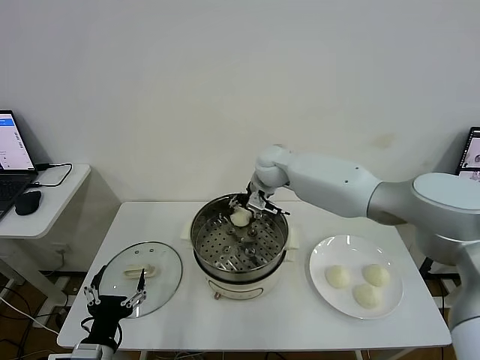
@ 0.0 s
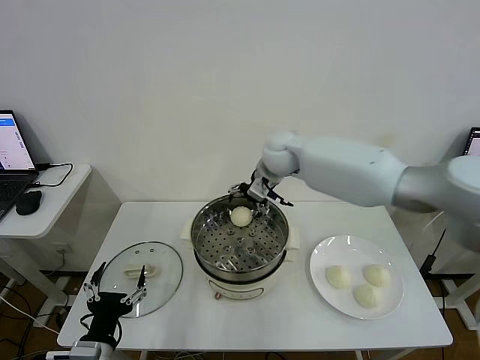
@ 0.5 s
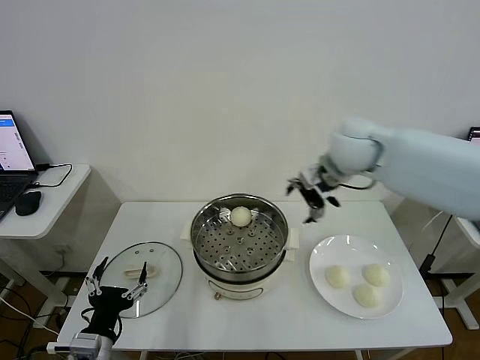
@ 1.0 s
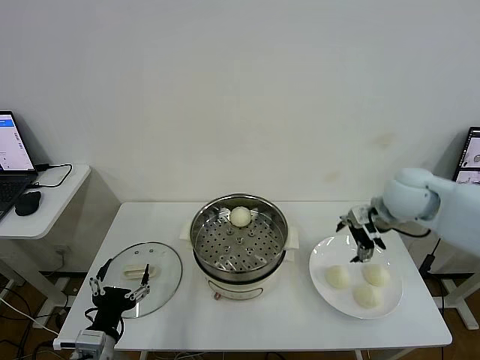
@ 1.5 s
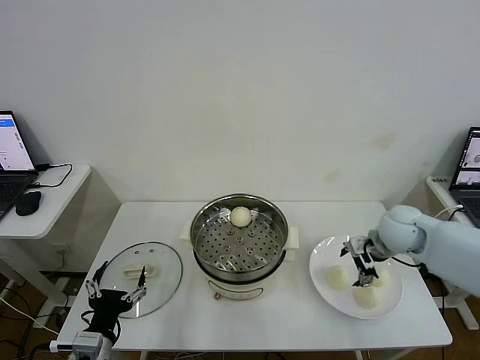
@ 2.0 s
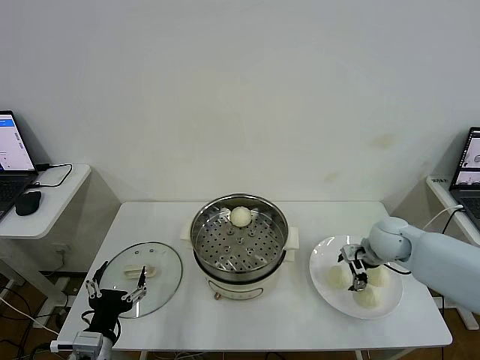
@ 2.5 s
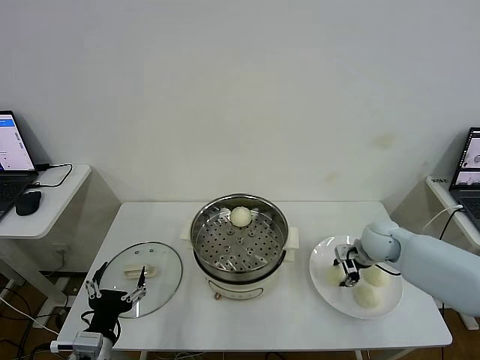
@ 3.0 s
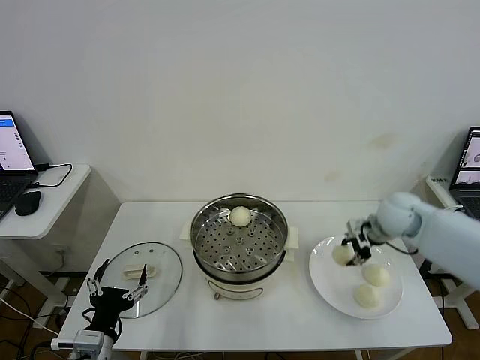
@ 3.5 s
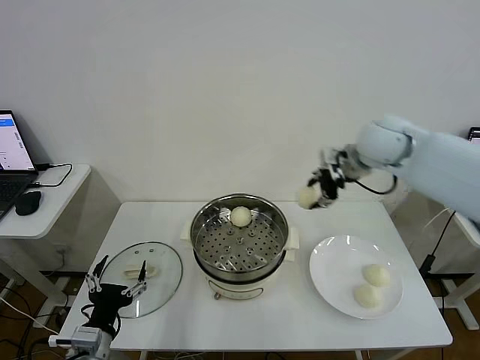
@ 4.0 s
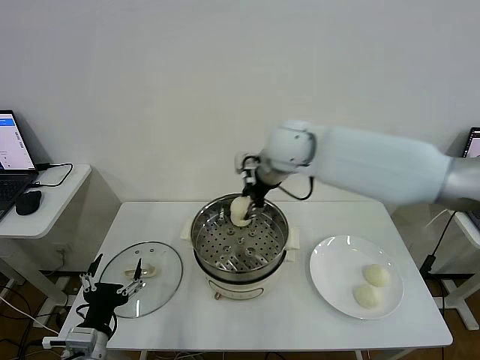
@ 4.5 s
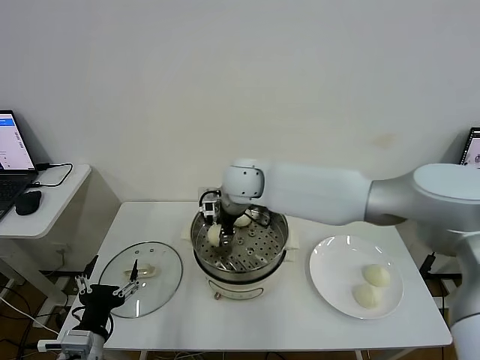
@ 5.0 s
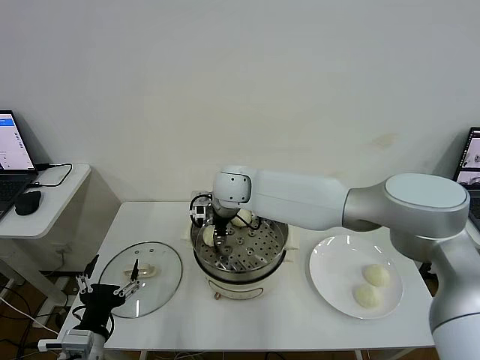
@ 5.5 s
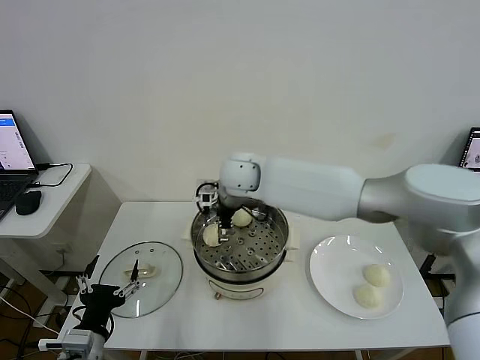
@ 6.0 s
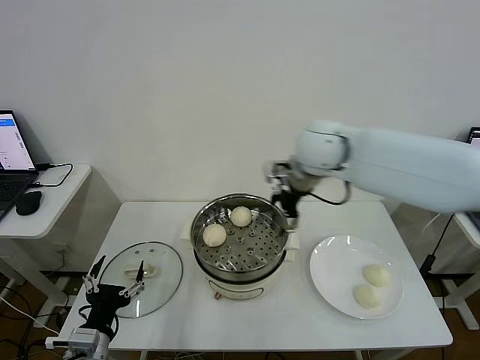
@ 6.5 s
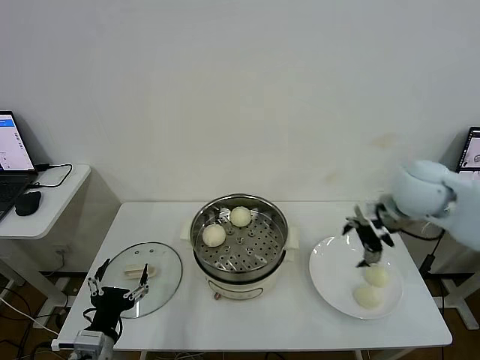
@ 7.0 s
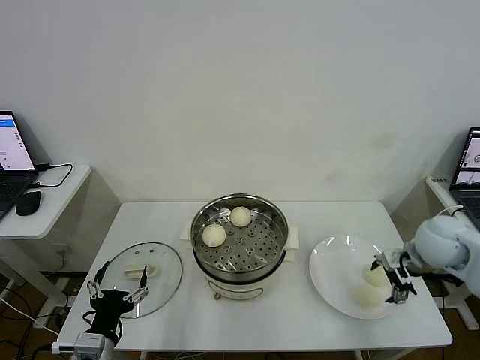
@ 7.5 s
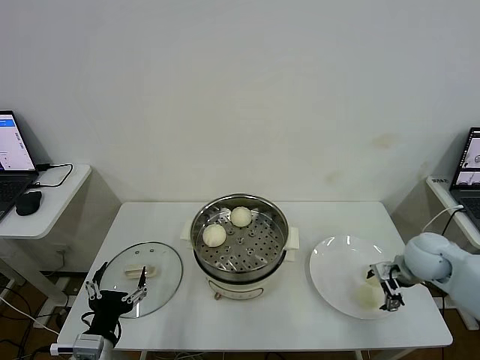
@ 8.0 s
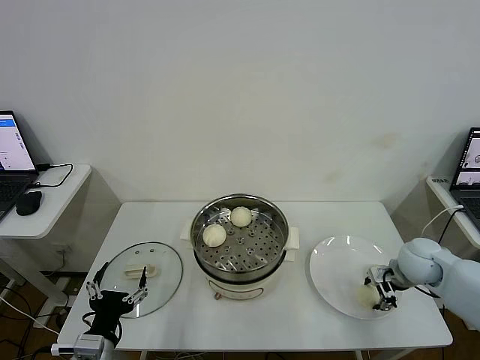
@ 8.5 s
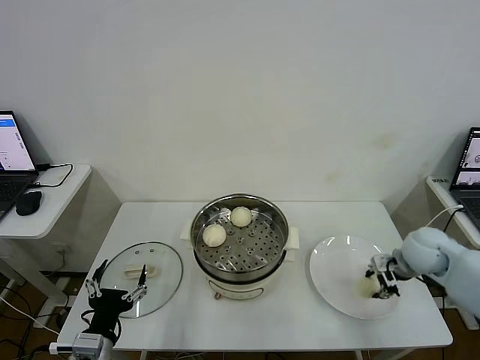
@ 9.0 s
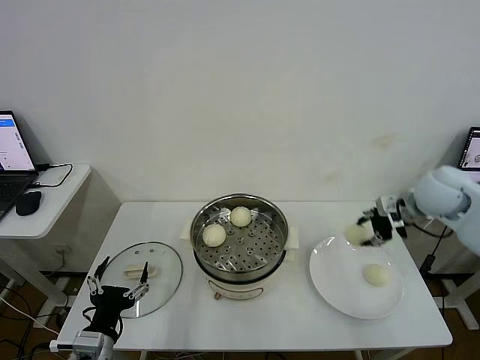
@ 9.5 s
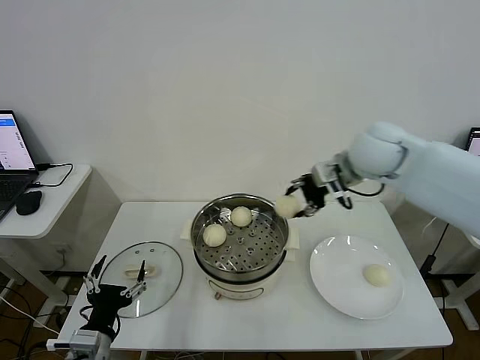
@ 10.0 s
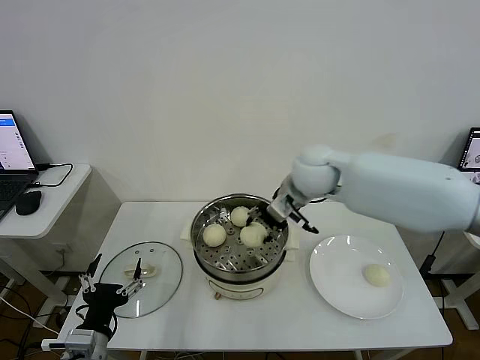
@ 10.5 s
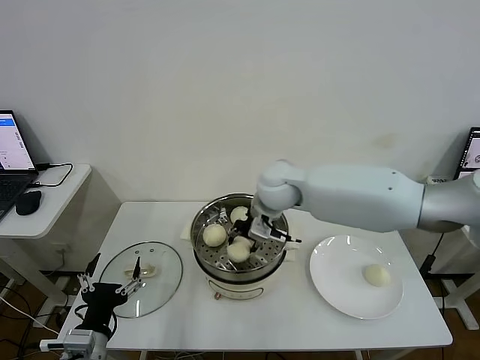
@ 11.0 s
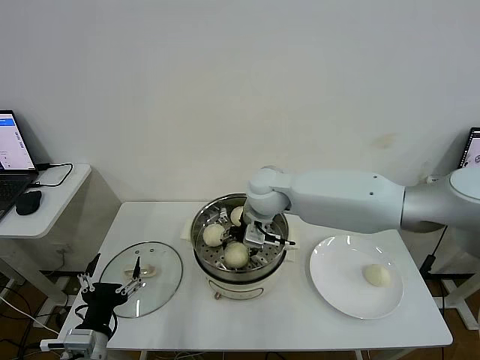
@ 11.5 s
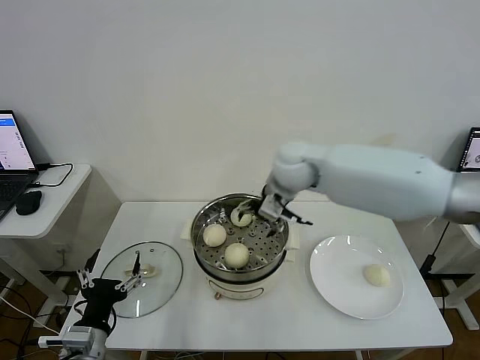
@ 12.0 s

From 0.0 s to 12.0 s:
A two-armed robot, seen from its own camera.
Task of the whole recording: take steamed baozi put them in steamer then cover it.
Step, from 0.5 s to 3.0 s: Grasp the baozi in the plate with right gripper.
Step, from 3.5 s to 6.0 s: Place the baozi on the steamer with right gripper.
Step, from 6.5 s to 8.5 s: Grasp the baozi in the plate with right gripper.
Step, from 9.0 s to 11.5 s: Place the baozi on the steamer with right gripper.
From 0.0 s to 2.0 s: The right gripper heads to the right and backward, covering about 30 cm, and opens up.
From 2.0 s to 4.0 s: The right gripper travels upward and to the left by some 25 cm, and closes up.
From 4.0 s to 6.0 s: The right gripper shifts some 20 cm to the left, and opens.
From 6.0 s to 8.0 s: The right gripper is displaced to the right by some 40 cm.
From 8.0 s to 10.0 s: The right gripper is displaced upward, to the left and forward by approximately 30 cm, and closes.
From 10.0 s to 12.0 s: The right gripper moves to the left, roughly 10 cm, and opens up.

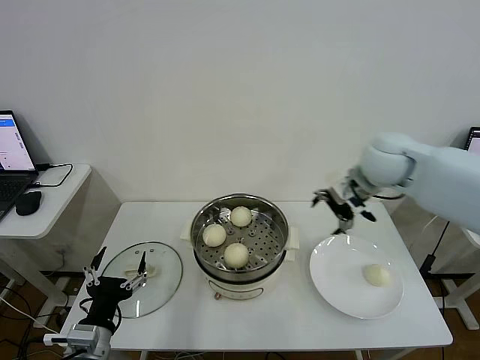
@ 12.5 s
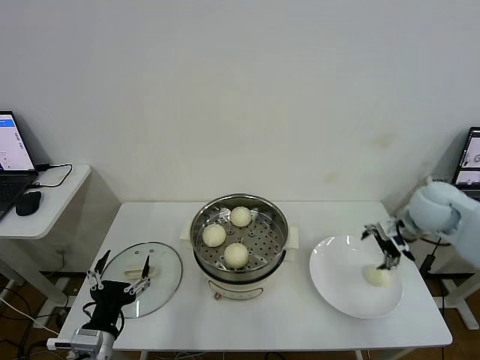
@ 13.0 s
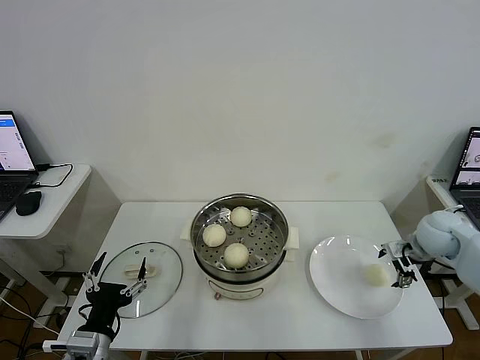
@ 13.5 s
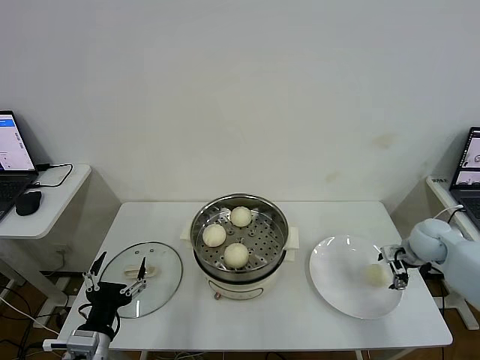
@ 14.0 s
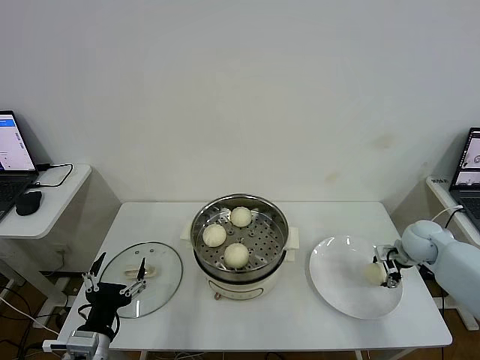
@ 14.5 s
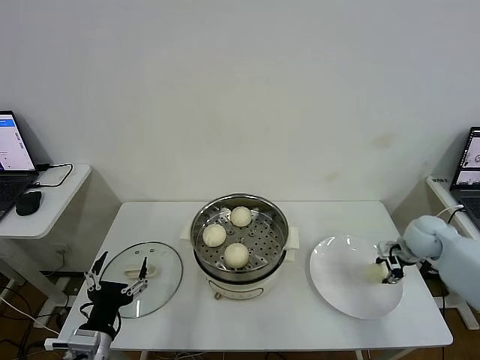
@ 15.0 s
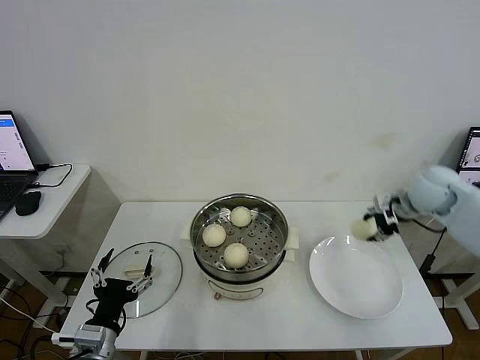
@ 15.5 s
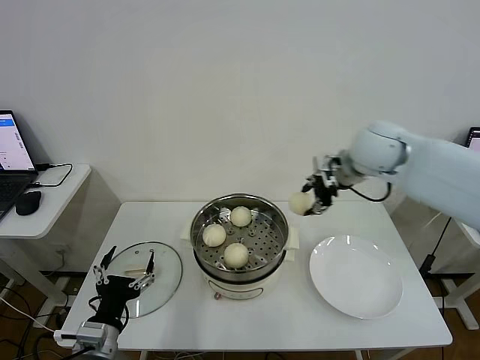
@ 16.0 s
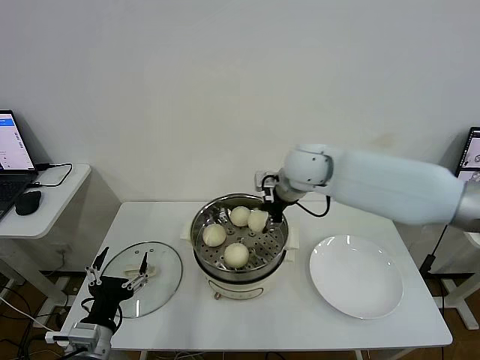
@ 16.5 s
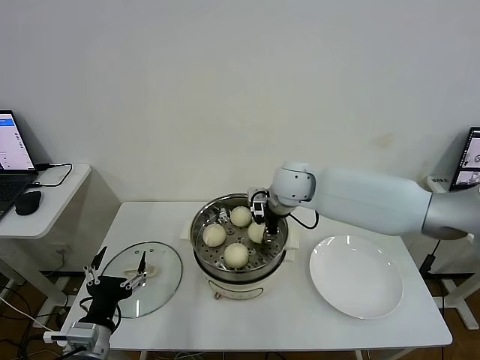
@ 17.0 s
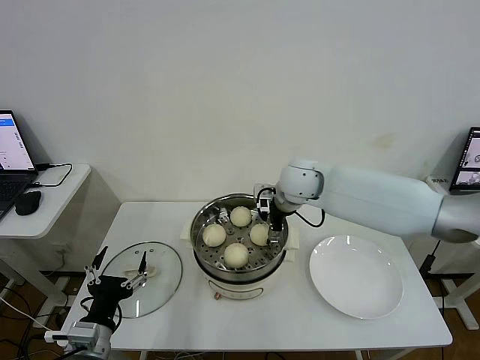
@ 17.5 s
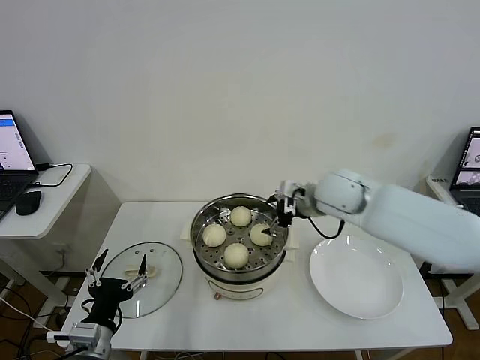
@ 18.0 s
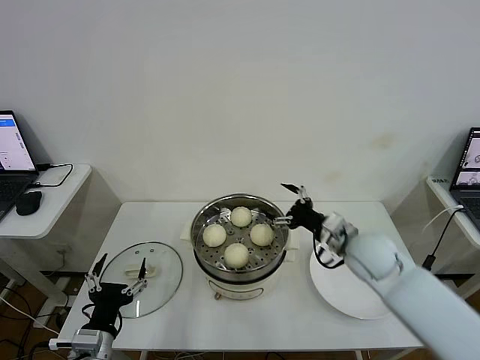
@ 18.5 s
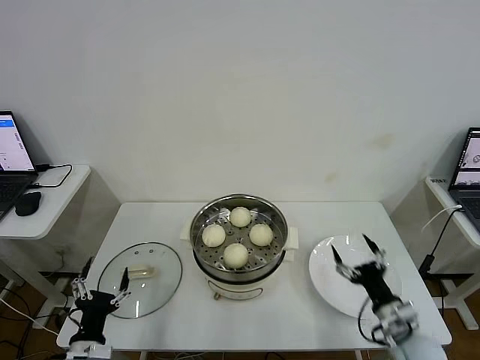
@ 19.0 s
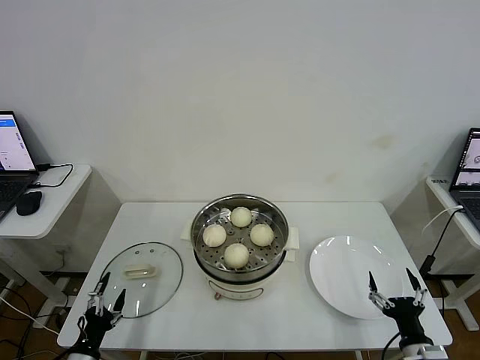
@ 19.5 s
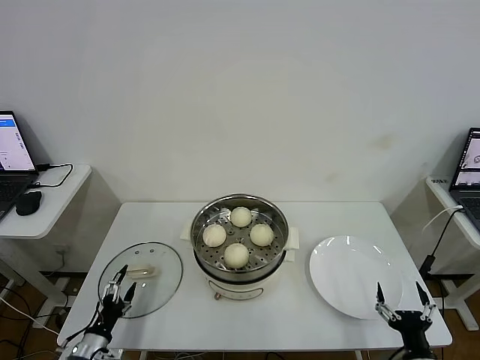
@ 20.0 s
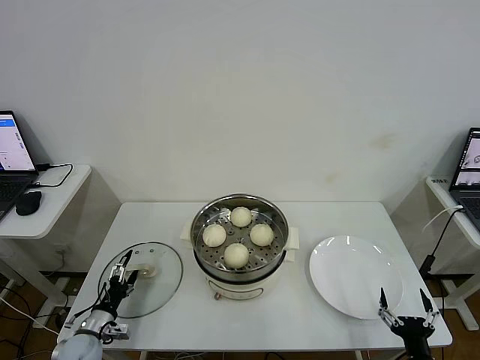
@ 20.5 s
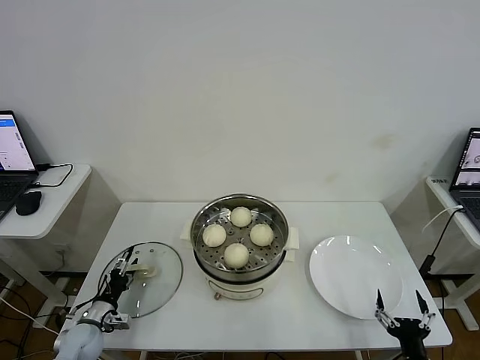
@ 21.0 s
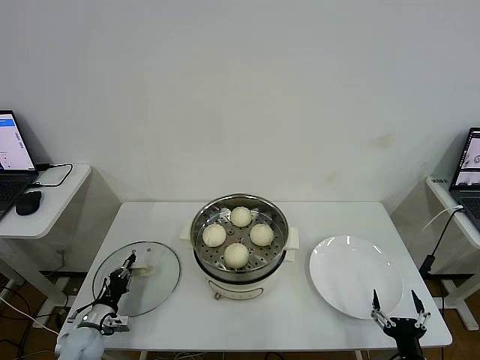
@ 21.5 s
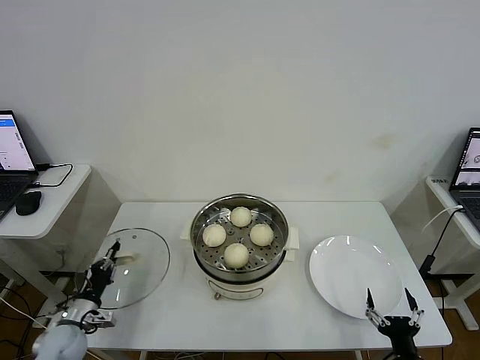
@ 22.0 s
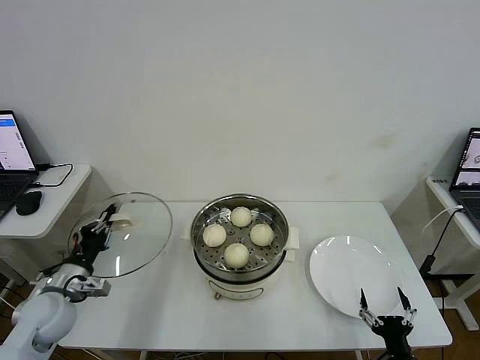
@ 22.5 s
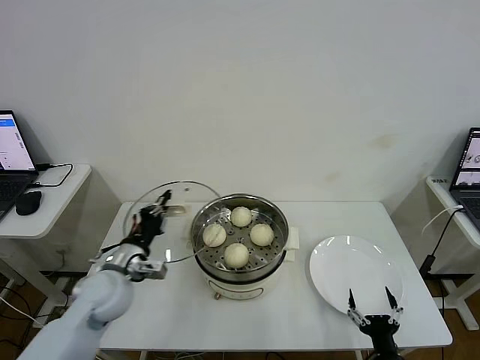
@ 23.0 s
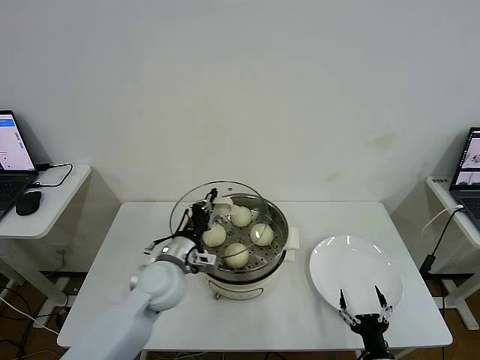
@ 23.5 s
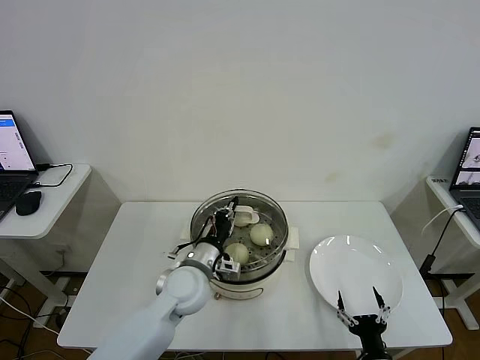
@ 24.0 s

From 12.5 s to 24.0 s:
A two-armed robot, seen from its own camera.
Task of the whole recording: take steamed baozi put them in steamer then cover it.
Step, from 12.5 s to 14.5 s: Grasp the baozi in the plate with right gripper.
Step, from 15.0 s to 17.5 s: Place the baozi on the steamer with right gripper.
Step, from 18.0 s to 21.5 s: Grasp the pot lid with left gripper.
From 12.5 s to 14.5 s: The right gripper heads downward and to the right, covering approximately 25 cm, and closes up.
From 14.5 s to 16.5 s: The right gripper shifts about 35 cm to the left and upward, and closes.
From 16.5 s to 18.5 s: The right gripper shifts roughly 20 cm downward, to the right and backward, and opens up.
From 18.5 s to 20.0 s: The right gripper moves backward and downward, about 30 cm; the left gripper shifts roughly 20 cm downward and to the left.
From 20.0 s to 22.0 s: The left gripper goes about 10 cm forward, and closes its fingers.
From 22.0 s to 24.0 s: The left gripper goes about 35 cm to the right and upward, while the right gripper shifts by approximately 5 cm.

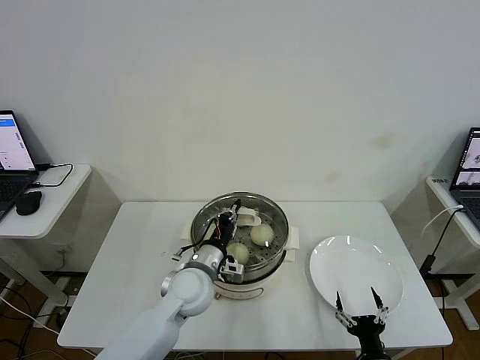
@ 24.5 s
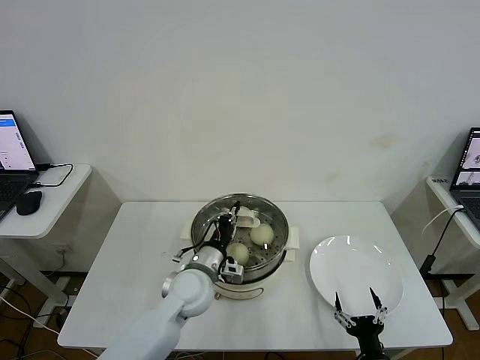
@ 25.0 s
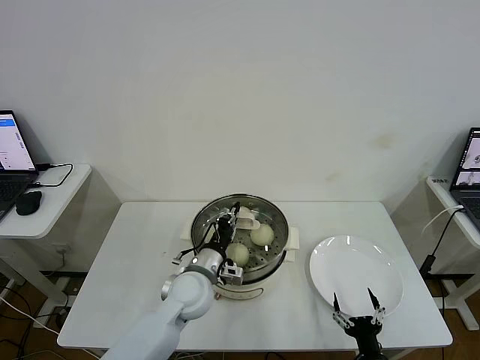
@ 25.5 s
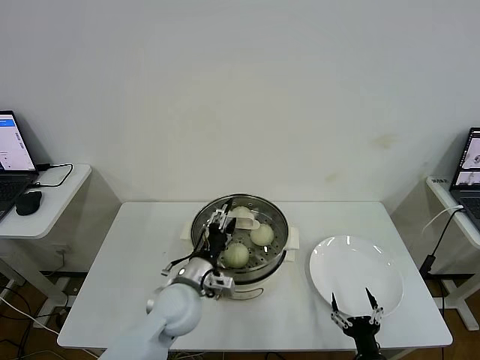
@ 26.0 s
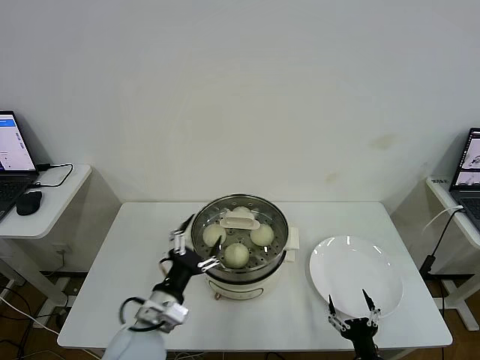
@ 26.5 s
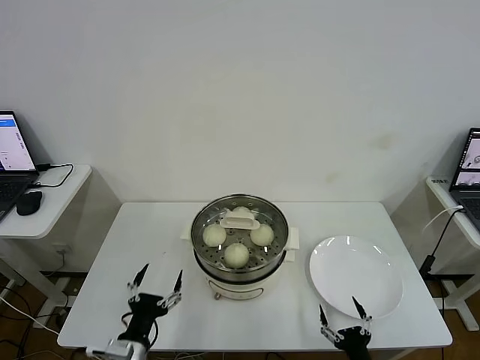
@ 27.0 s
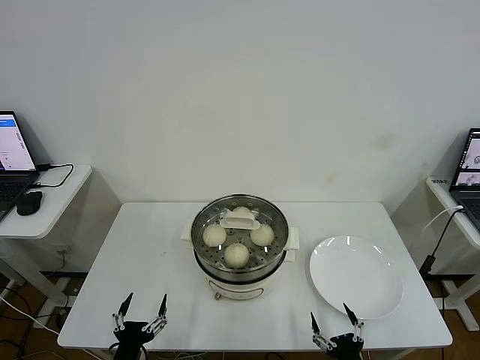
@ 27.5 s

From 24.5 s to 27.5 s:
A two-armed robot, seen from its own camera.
Task of the whole recording: take steamed baozi put them in steamer then cover it.
From 24.5 s to 26.0 s: The left gripper opens up.
From 26.0 s to 27.5 s: The left gripper goes approximately 25 cm backward, to the left and downward, and opens.
